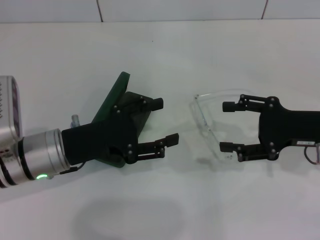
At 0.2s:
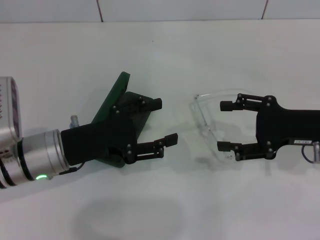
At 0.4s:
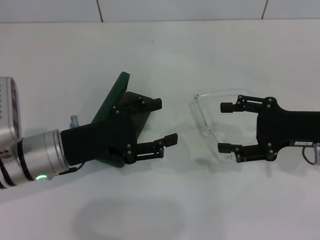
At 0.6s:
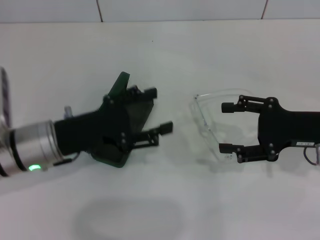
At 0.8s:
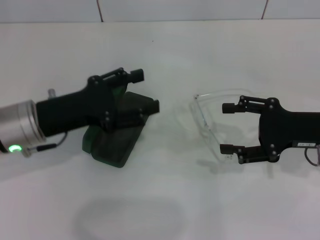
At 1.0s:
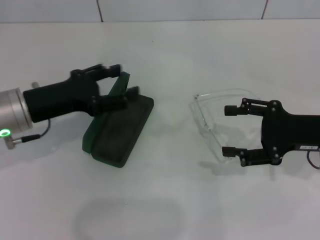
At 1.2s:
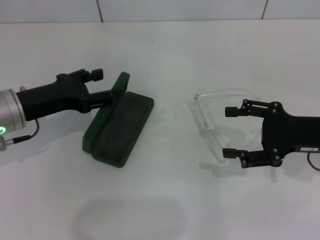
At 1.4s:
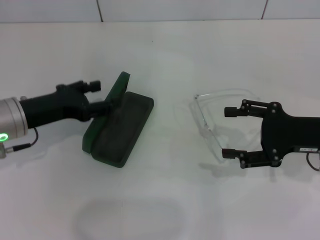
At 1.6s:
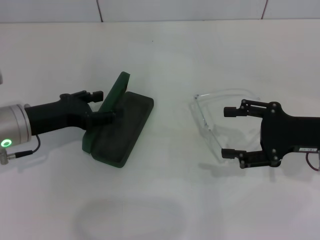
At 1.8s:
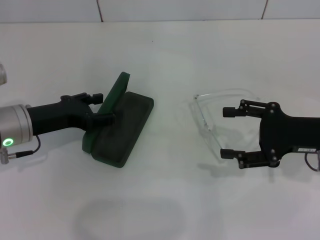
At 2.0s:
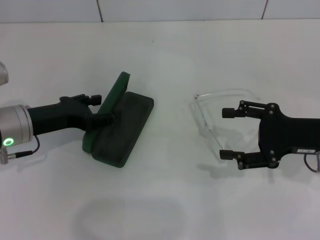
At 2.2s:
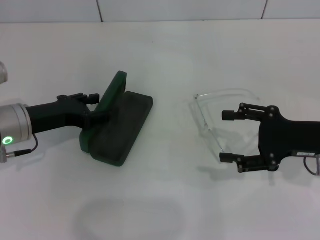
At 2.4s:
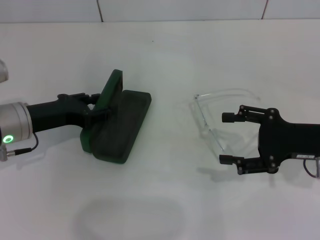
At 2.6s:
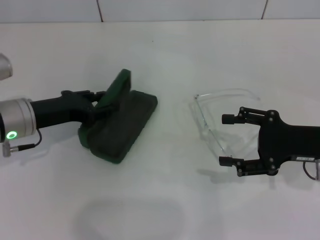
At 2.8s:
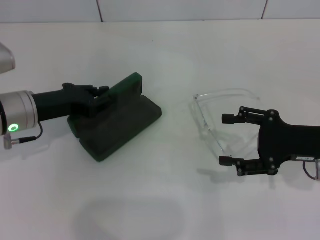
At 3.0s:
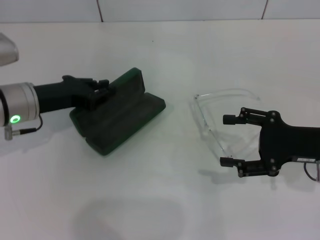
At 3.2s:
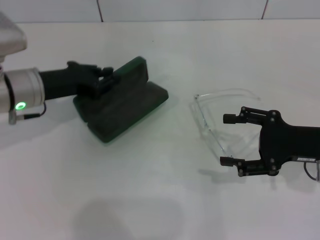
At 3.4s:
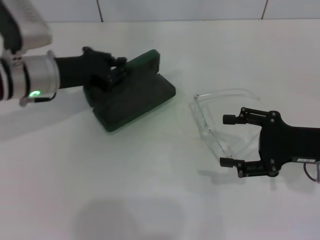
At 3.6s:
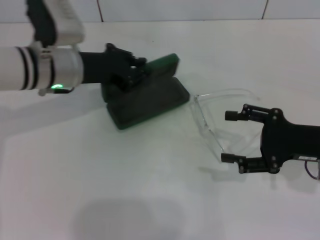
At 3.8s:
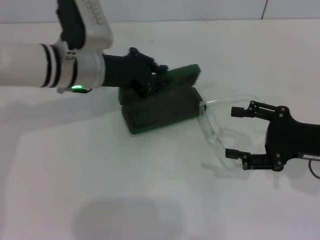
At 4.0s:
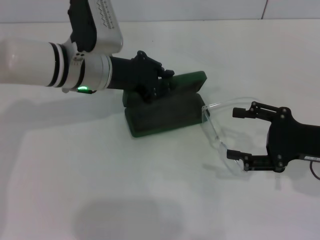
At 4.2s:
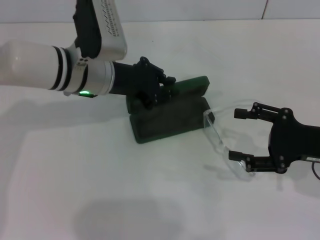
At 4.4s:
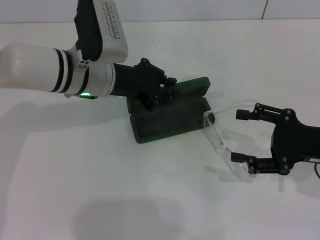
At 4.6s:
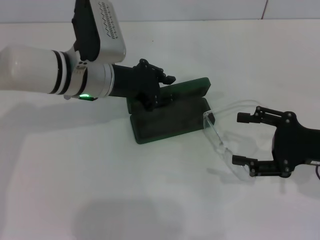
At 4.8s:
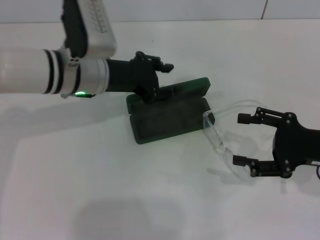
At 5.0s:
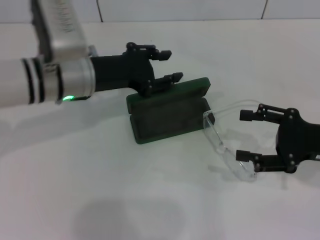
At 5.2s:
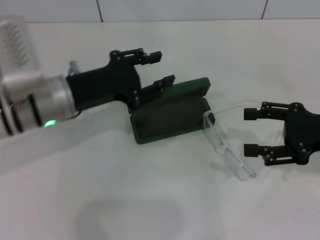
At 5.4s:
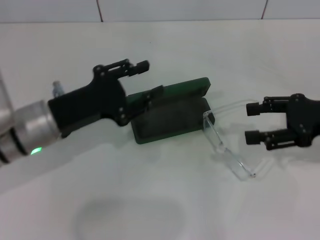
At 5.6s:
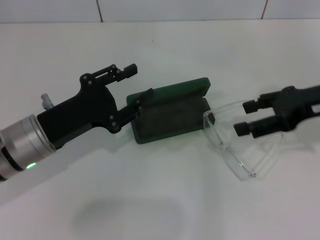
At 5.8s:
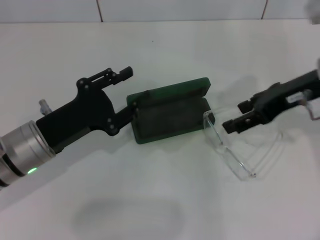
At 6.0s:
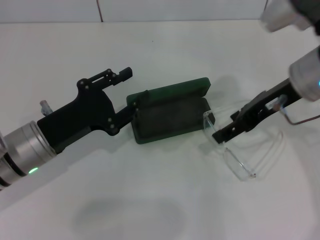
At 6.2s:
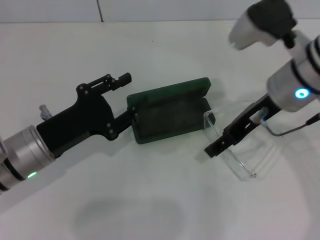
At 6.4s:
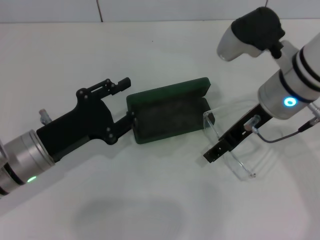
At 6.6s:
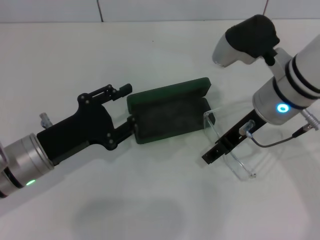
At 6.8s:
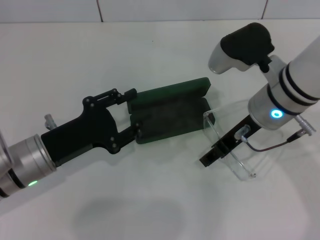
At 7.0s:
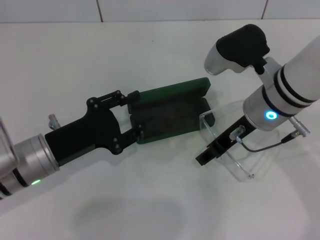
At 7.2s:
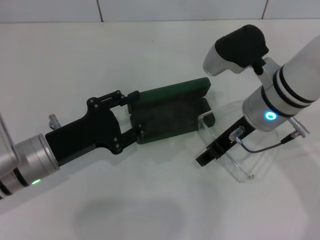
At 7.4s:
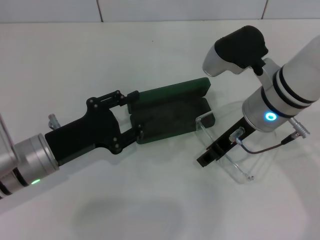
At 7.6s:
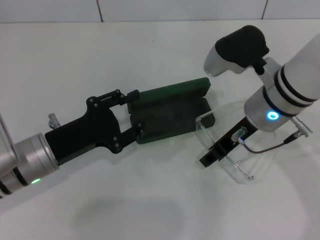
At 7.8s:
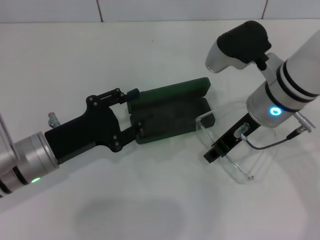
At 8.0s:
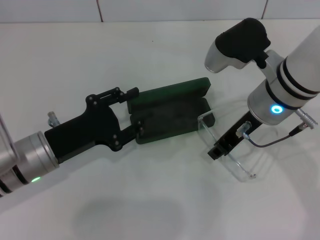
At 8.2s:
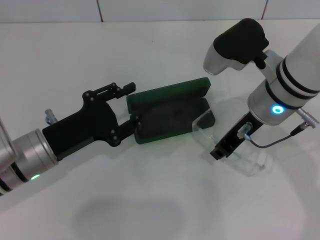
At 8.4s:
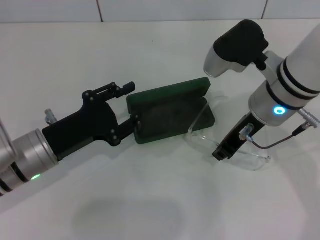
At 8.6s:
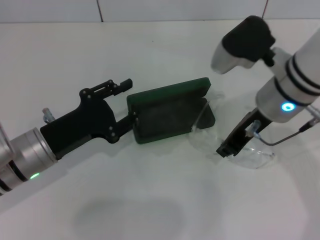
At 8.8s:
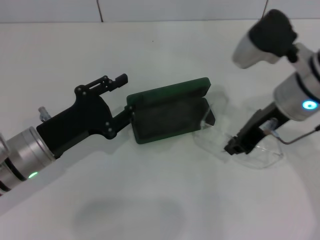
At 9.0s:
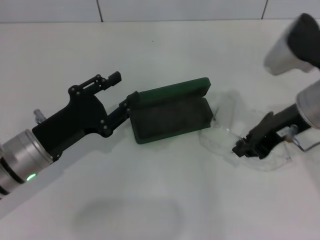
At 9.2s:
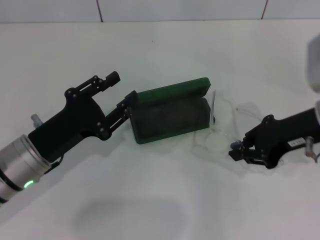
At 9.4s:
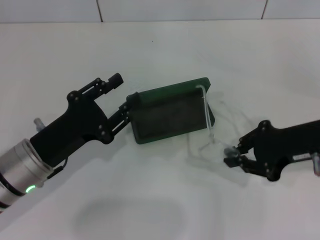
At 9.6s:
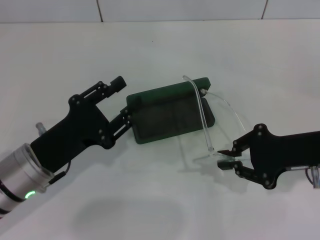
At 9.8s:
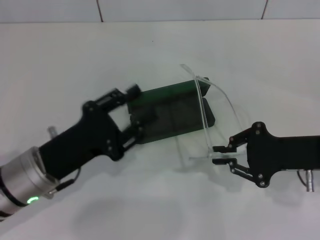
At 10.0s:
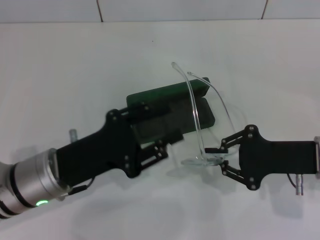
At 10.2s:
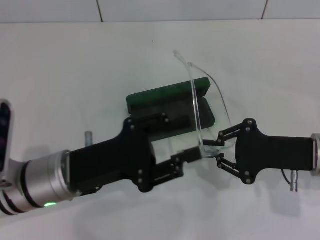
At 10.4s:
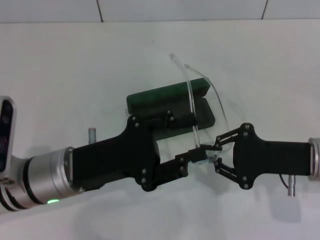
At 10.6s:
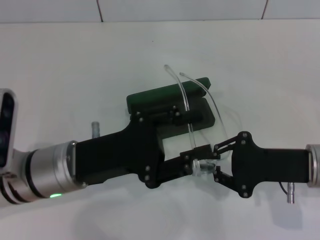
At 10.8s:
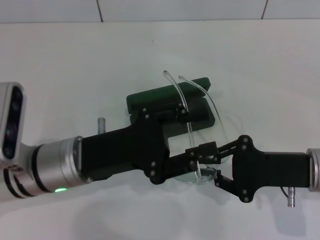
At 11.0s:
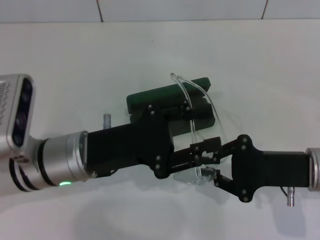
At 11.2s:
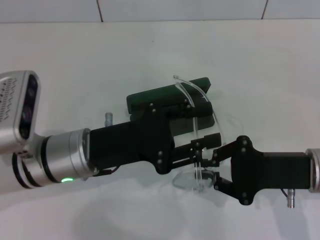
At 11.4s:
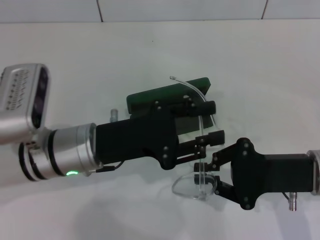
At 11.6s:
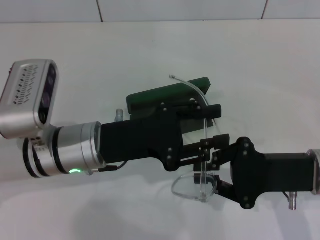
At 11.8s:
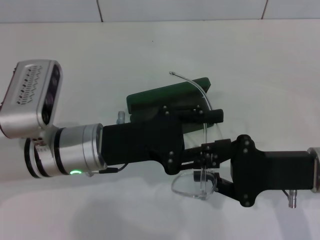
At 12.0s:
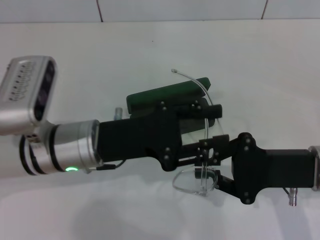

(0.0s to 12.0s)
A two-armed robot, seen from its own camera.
Step, 0.0s - 2.4s: Grab the glasses case with your left hand.
Step, 2.8s - 4.4s: Place the glasses case in the center of the table with your left hand.
Step, 4.6s - 8.6s: Grab the eyeglass frame with your right hand.
0.0s - 1.6s: The left gripper travels to the left by roughly 5 cm.
1.6s - 3.0s: The left gripper closes up.
3.0s - 4.4s: The left gripper travels to the right by some 10 cm.
4.4s - 6.0s: The right gripper moves upward, to the left and forward, approximately 15 cm, while the left gripper goes roughly 15 cm backward, to the left and downward, and opens.
6.0s - 7.6s: The right gripper heads to the left, covering some 5 cm, and closes up.
7.6s - 9.0s: The right gripper travels to the right by about 5 cm, and closes its fingers.
9.0s - 10.4s: The left gripper moves to the right, about 5 cm, while the right gripper heads downward and backward, covering roughly 10 cm.

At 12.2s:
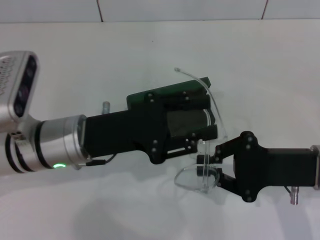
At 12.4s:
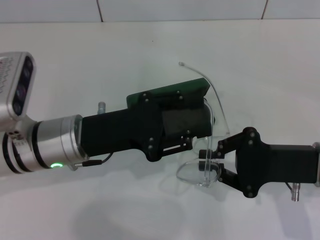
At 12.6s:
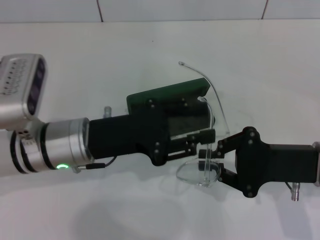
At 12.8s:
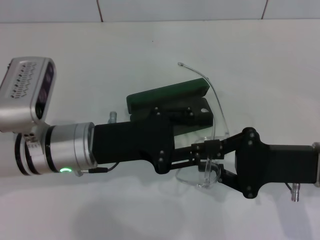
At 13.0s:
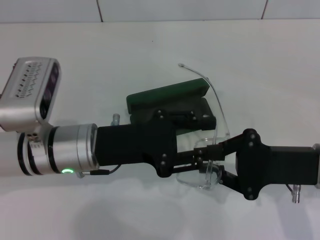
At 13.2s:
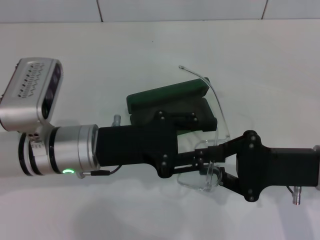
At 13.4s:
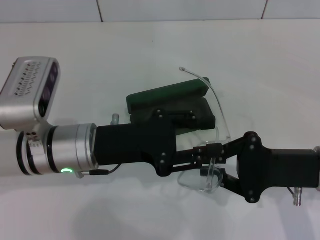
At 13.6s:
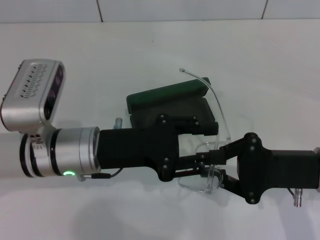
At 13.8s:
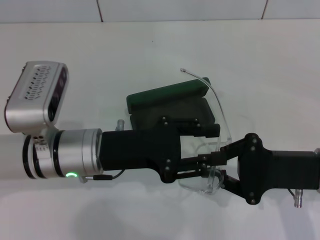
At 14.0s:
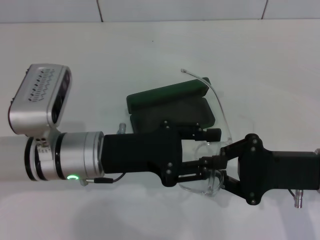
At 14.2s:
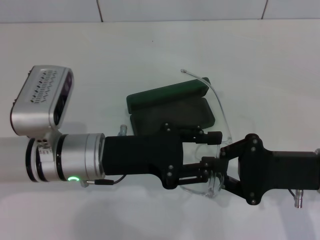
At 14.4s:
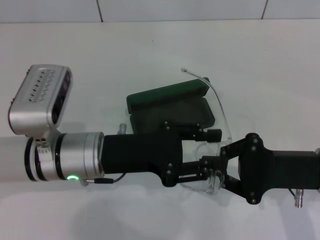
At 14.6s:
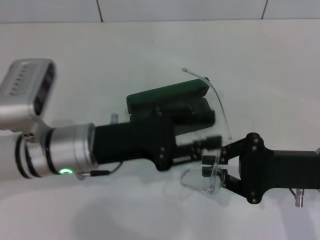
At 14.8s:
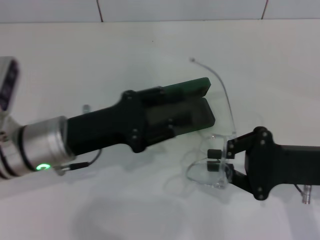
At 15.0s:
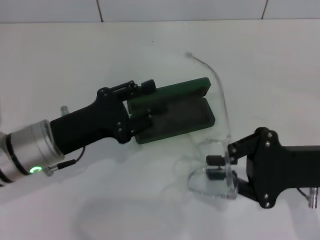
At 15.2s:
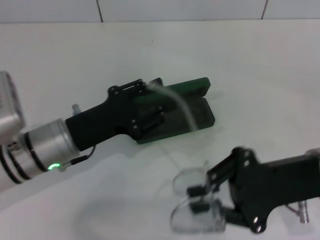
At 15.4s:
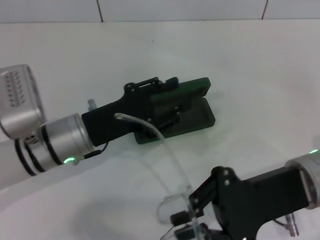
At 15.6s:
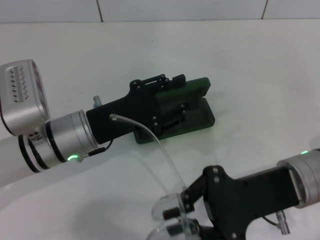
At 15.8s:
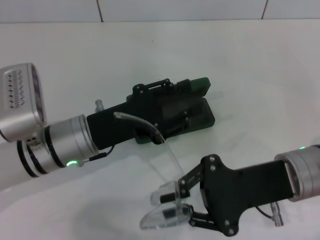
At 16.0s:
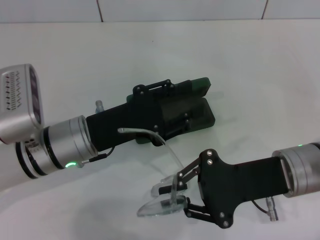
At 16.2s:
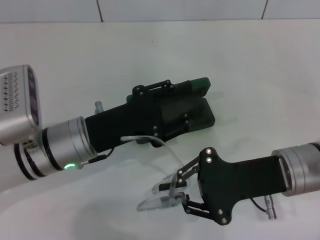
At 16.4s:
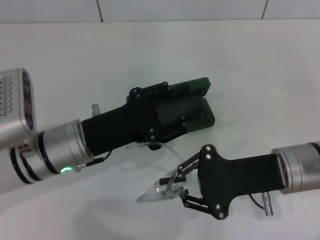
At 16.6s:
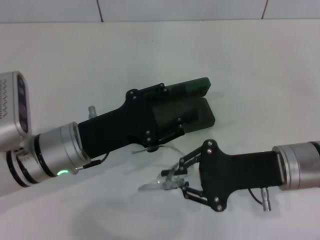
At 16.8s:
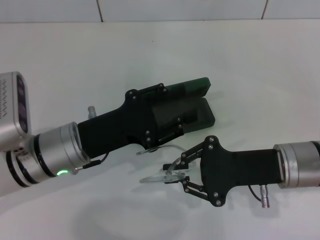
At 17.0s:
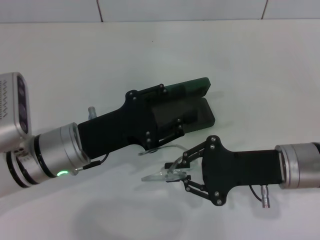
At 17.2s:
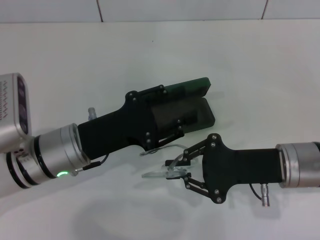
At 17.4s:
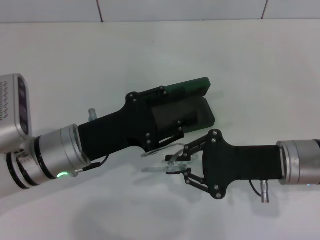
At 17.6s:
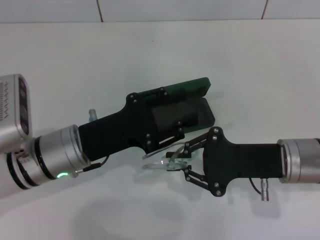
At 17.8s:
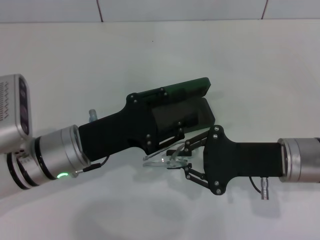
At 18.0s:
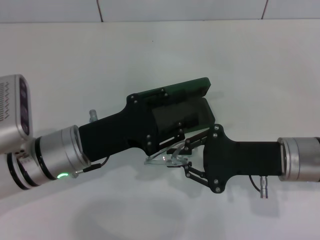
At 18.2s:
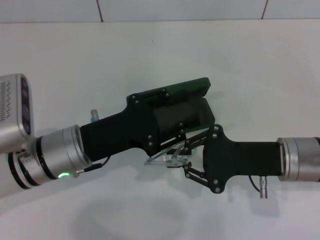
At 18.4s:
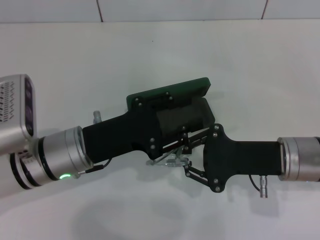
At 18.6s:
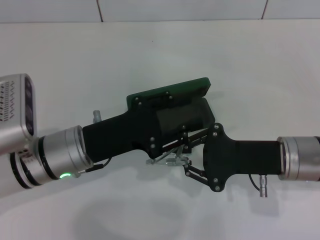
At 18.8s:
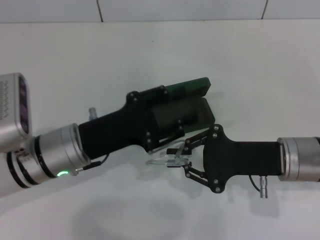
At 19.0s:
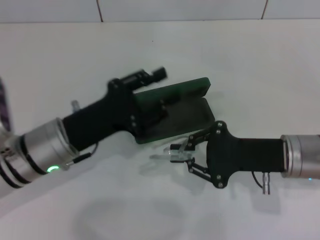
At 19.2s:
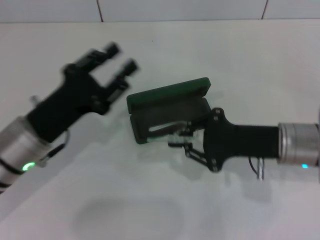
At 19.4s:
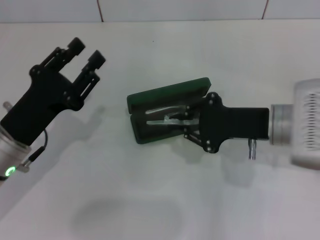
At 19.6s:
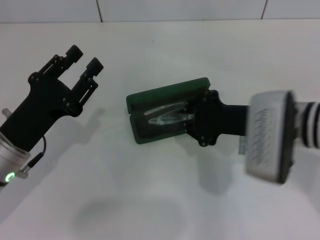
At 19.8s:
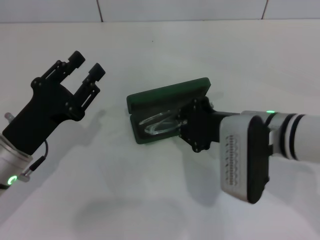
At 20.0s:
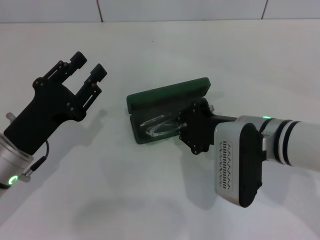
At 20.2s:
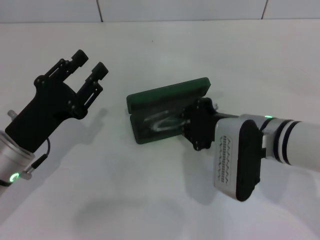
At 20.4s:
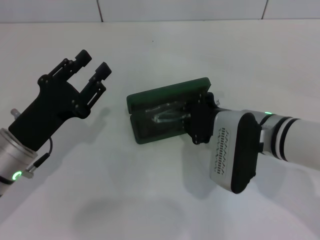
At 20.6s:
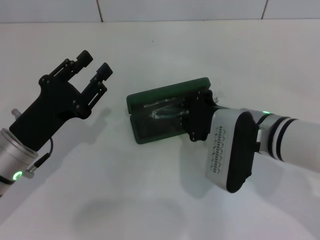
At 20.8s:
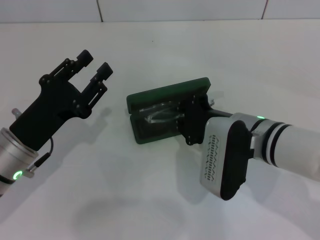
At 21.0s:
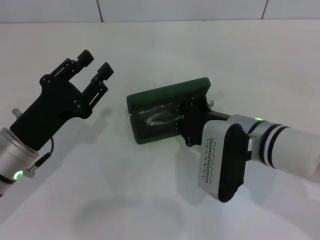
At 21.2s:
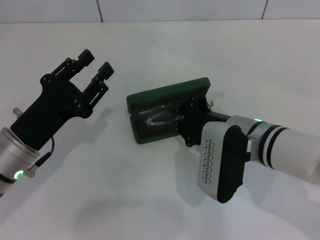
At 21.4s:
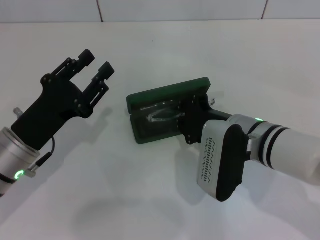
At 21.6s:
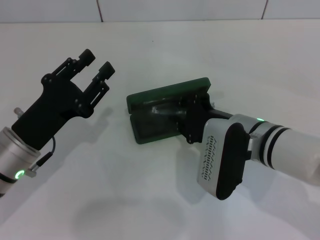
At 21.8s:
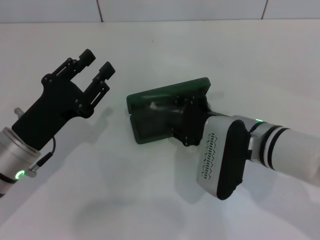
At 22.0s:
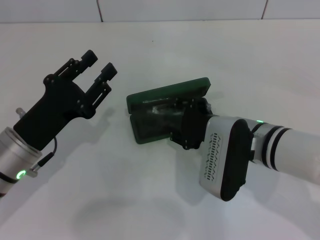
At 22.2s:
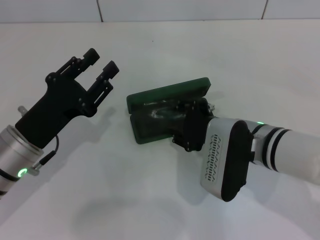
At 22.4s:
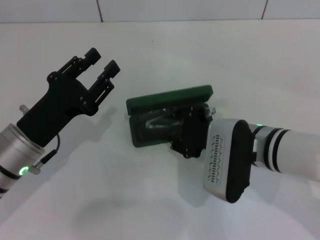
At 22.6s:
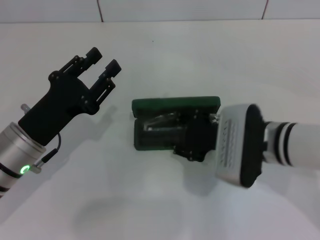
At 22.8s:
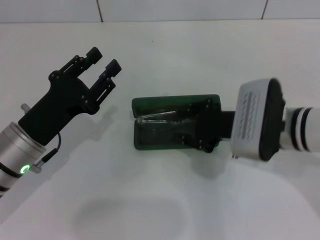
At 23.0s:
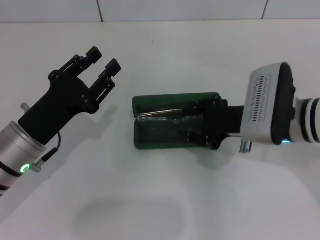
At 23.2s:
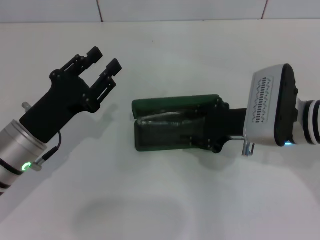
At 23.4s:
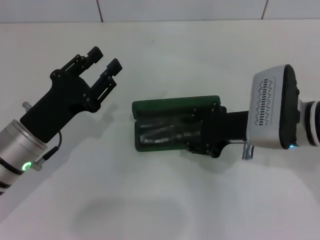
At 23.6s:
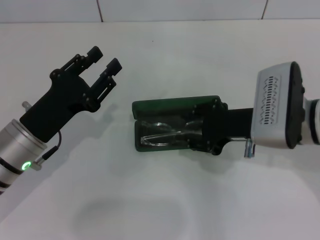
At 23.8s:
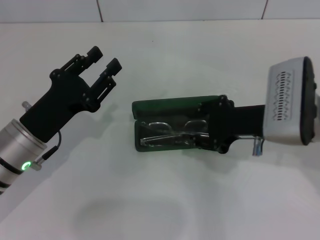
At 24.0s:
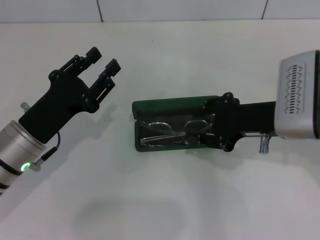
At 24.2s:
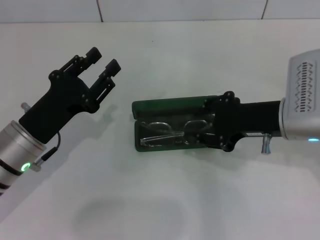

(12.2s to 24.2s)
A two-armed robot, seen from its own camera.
Step, 12.2s - 17.8s: Fold the frame with your left hand.
Step, 18.2s - 23.6s: Put the glasses into the case with your right hand.
12.2s - 13.8s: The grippers make only small movements.
16.6s - 18.2s: The grippers make only small movements.
18.2s - 19.8s: Both grippers travel together to the left, roughly 5 cm.
19.8s - 22.6s: The grippers stay close to where they were, moving slightly.
22.6s - 24.2s: The right gripper goes roughly 10 cm to the right and upward.
